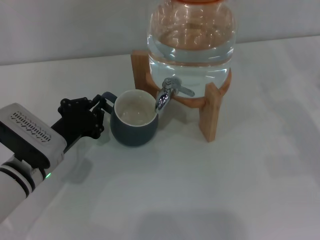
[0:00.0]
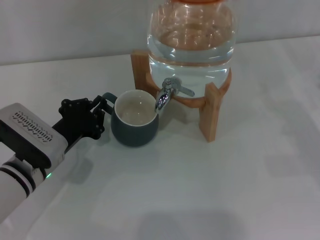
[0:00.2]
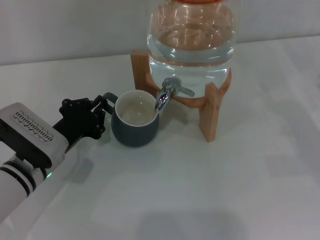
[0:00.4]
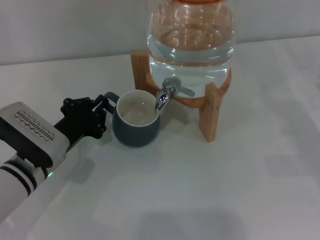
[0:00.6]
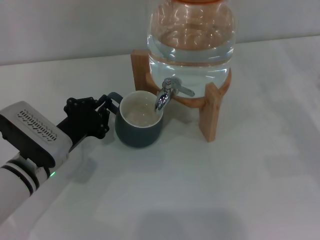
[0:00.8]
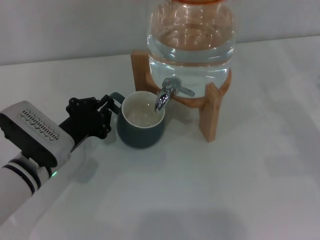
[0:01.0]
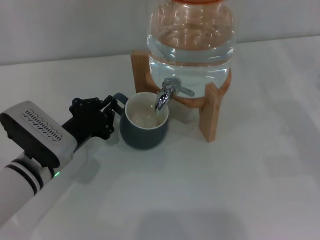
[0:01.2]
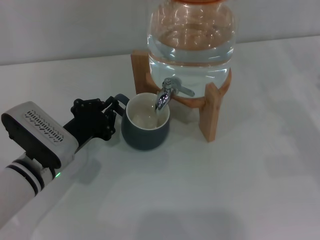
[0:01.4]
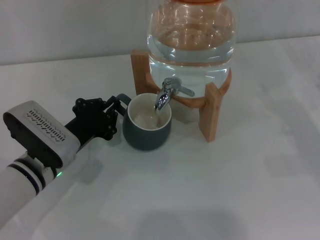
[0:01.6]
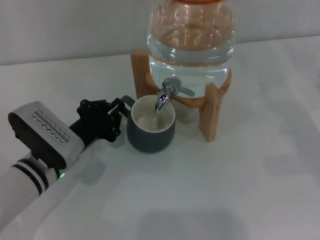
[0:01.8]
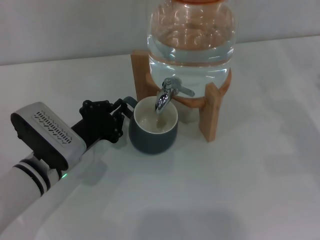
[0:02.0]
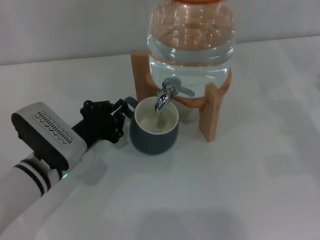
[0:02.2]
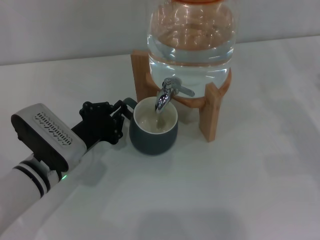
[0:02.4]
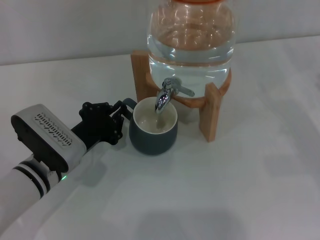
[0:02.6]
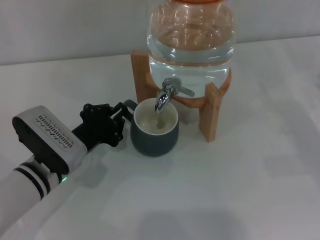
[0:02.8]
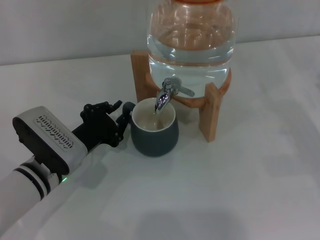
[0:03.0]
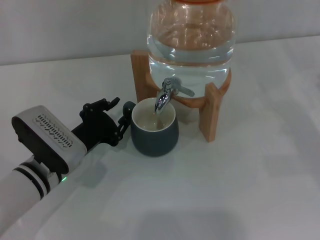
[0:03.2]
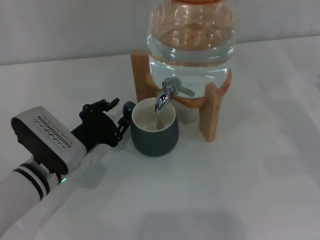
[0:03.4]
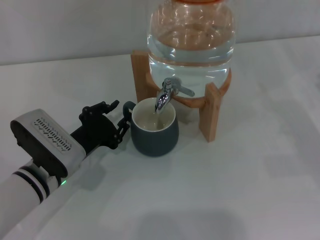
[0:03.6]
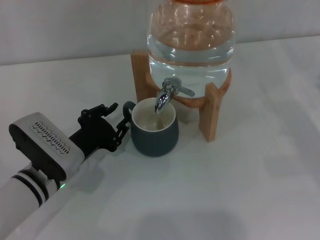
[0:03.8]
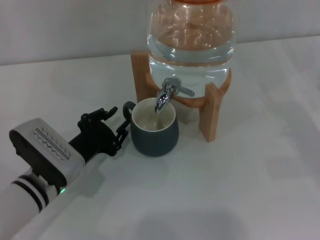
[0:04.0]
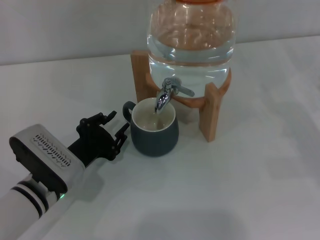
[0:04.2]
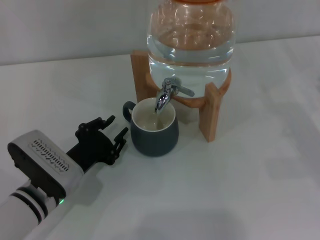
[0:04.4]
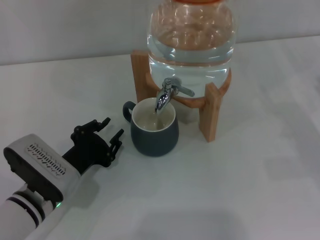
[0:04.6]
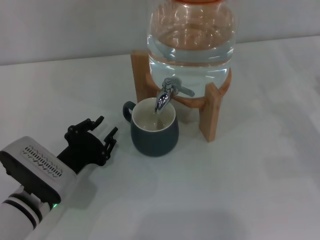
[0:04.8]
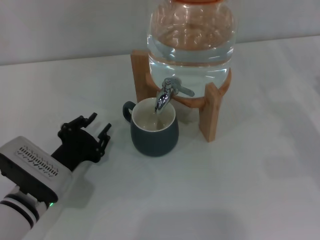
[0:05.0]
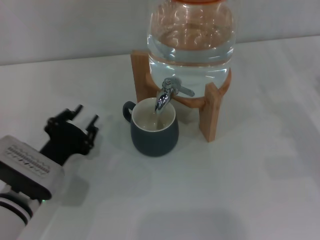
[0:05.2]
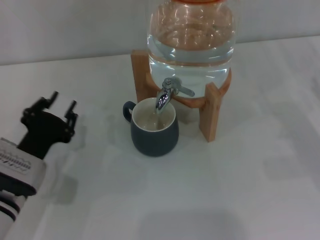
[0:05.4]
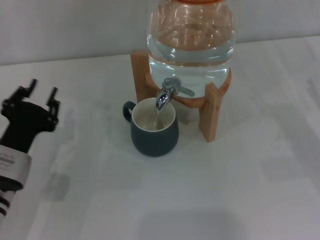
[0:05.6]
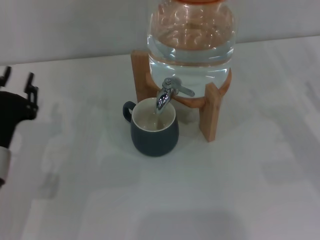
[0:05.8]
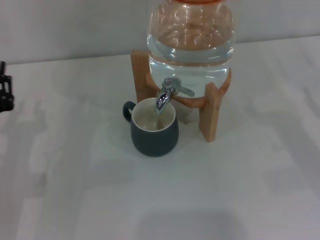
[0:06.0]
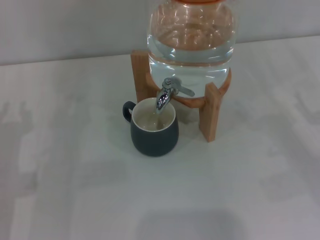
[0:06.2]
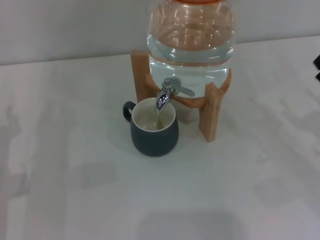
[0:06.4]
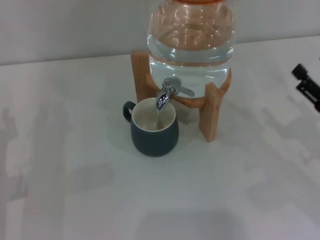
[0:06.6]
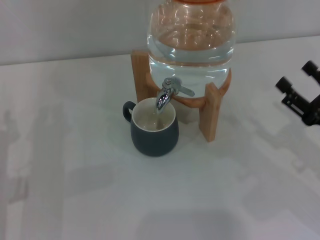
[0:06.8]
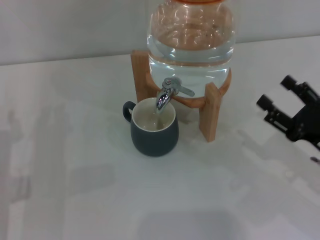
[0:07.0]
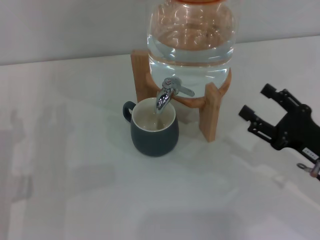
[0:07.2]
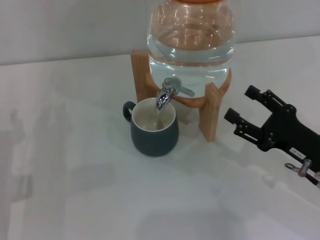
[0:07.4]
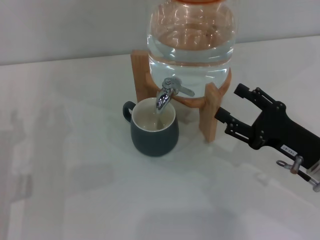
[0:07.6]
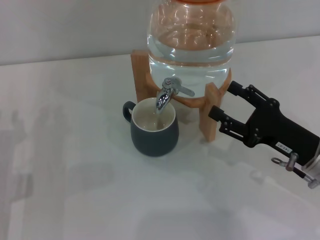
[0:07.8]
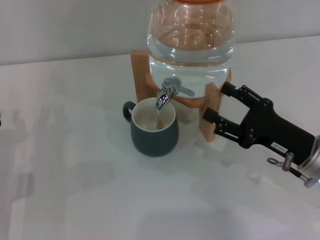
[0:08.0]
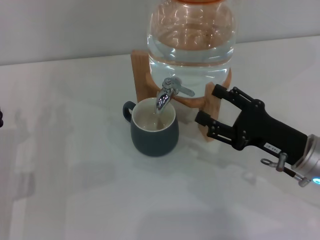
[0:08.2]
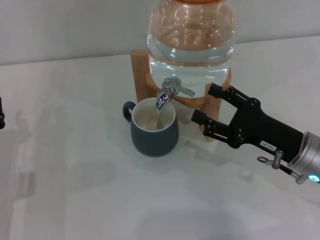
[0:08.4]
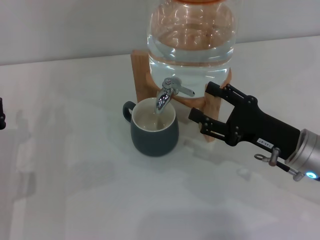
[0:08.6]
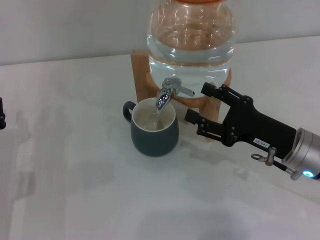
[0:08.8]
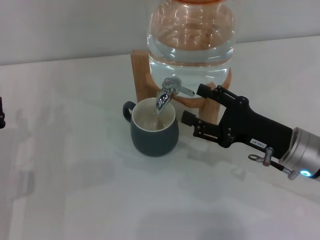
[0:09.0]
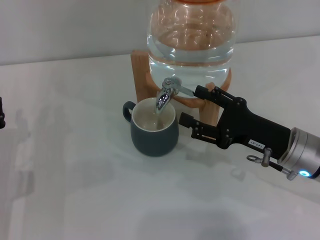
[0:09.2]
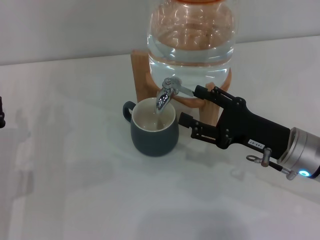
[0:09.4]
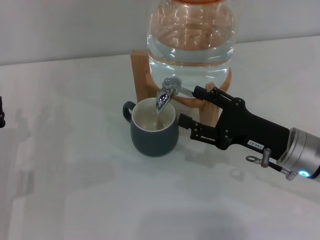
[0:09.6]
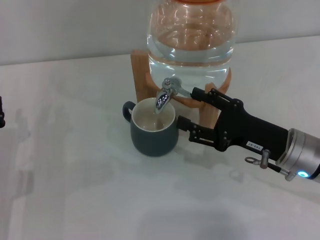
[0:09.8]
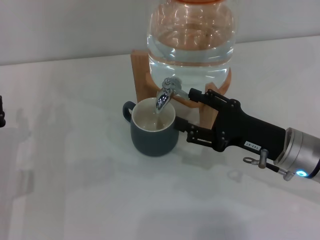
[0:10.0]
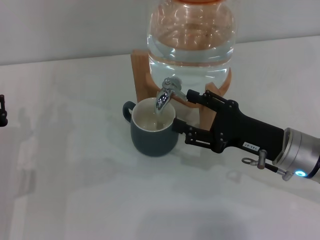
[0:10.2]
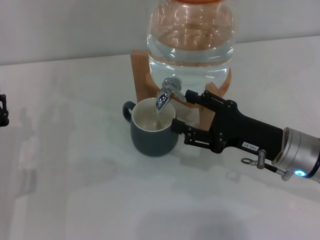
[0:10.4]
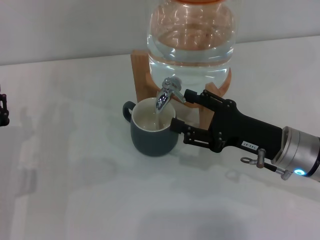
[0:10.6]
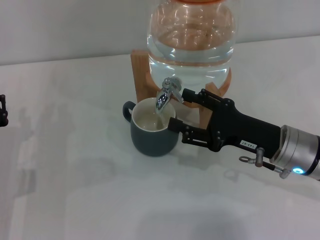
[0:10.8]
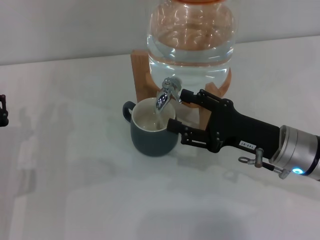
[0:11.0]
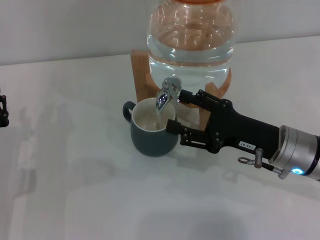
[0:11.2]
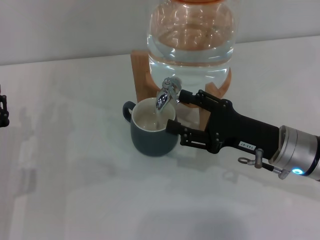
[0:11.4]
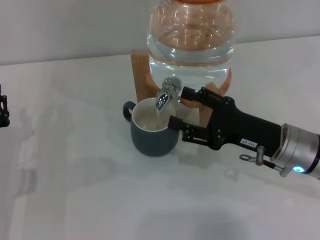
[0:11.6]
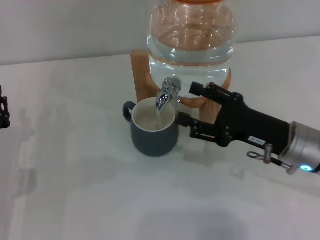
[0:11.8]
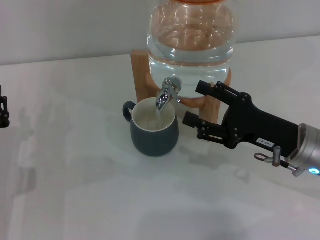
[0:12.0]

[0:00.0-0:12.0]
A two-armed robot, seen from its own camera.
Task of the whole recording: the left gripper pick up the black cup and place it horizontally under the faucet, the right gripper turn on the faucet to fill the cup, and then turn off the faucet.
Step, 0:00.0 to 0:05.0: Move the cup beneath the water dispenser nozzle with the left gripper.
0:00.0 to 0:01.6: The grippers move only a little.
0:01.6 to 0:03.0: The two grippers keep their place.
0:03.0 to 0:04.4: The grippers stay close to where they were, moving slightly.
0:04.4 to 0:06.0: The left gripper is displaced to the left by approximately 5 cm.
0:06.0 to 0:07.6: The right gripper travels to the left by about 10 cm.
0:07.6 to 0:12.0: The grippers make only small movements.

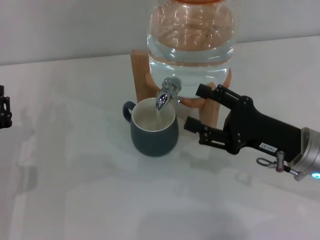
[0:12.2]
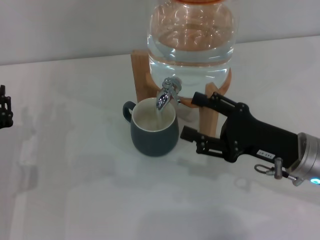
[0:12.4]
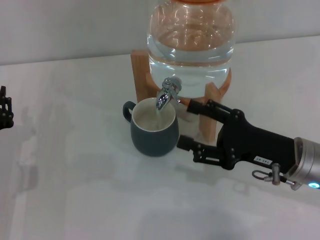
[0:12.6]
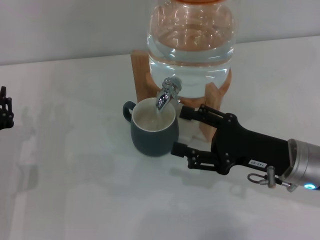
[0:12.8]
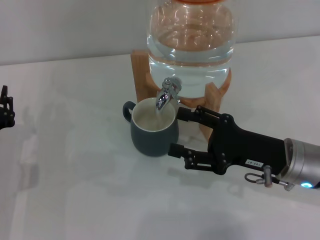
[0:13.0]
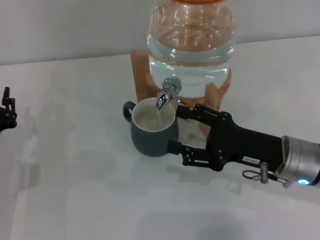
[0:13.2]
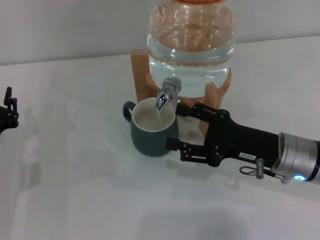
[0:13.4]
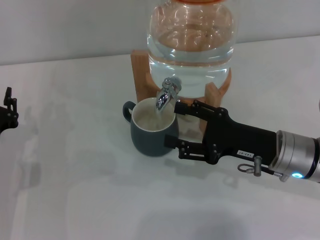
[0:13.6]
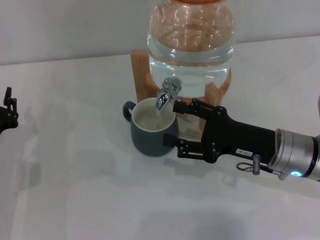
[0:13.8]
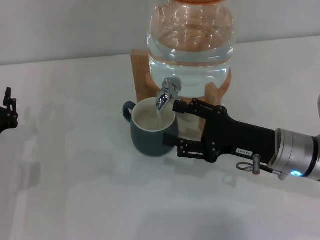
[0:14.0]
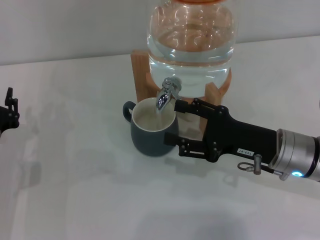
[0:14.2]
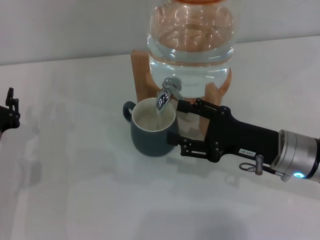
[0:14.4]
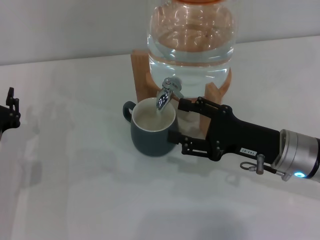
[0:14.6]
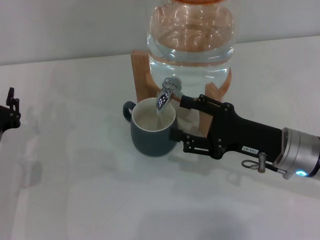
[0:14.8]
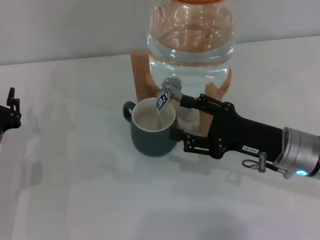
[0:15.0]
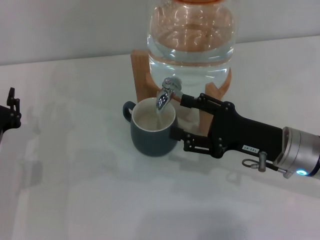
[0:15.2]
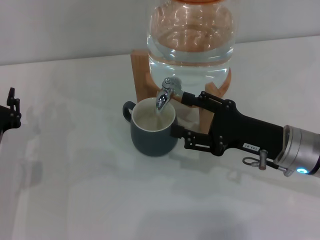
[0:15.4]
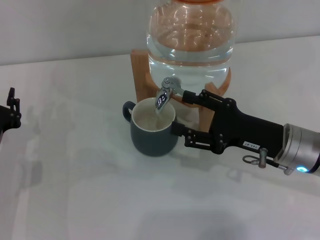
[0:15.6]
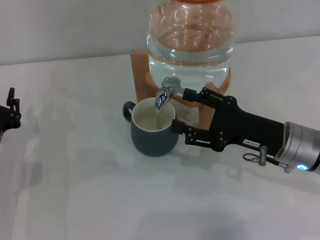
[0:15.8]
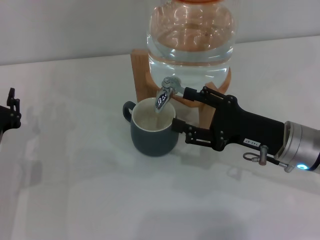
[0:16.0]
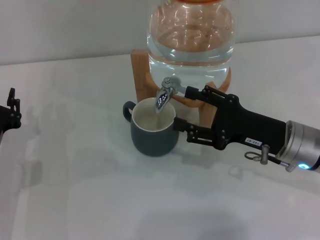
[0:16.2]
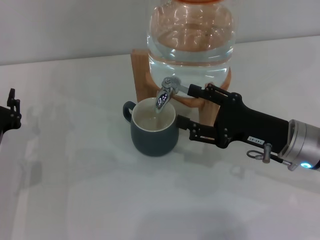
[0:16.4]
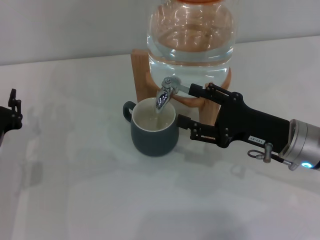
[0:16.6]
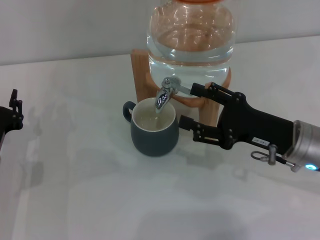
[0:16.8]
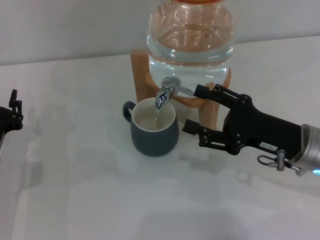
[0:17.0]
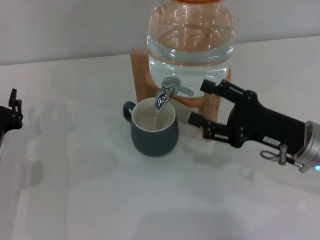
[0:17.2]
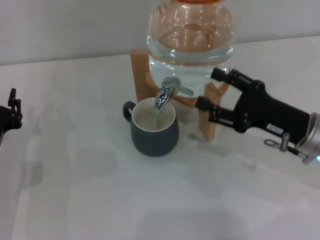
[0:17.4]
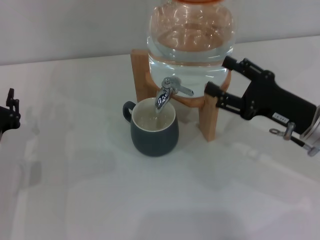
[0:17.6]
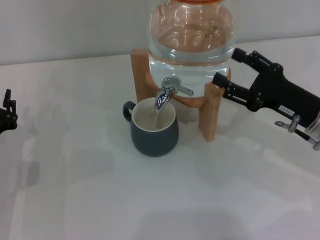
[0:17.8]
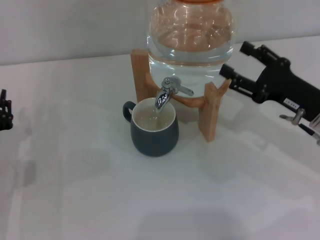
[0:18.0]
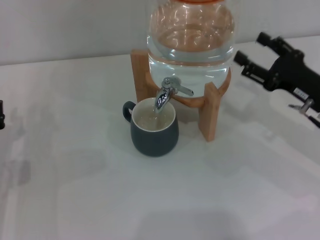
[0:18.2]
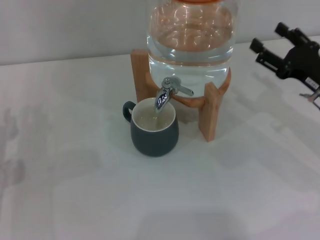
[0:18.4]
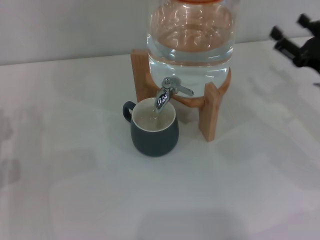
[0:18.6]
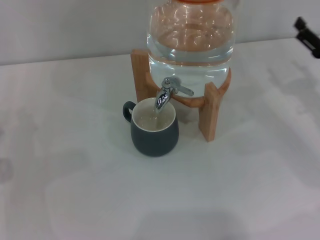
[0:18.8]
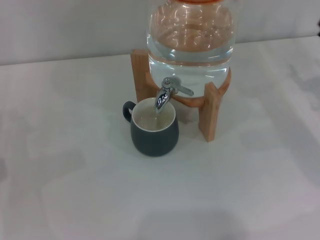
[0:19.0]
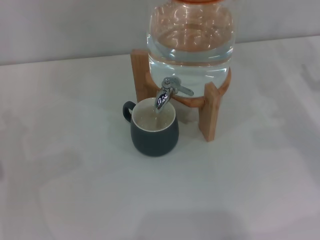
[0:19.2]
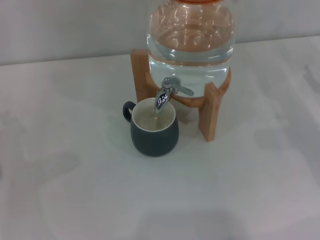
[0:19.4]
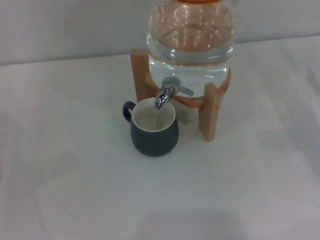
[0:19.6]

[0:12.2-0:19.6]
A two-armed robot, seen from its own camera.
Task of the whole recording: the left gripper pick up the black cup and place it horizontally under the faucet, the right gripper turn on the faucet to fill the cup, and then turn off the faucet.
Step, 0:13.6 to 0:17.4: Close the dispenser valve with the right gripper.
0:12.2 to 0:13.6: The grippers stay close to where they were, moving slightly.
0:13.6 to 0:15.2: Both grippers stay about where they are.
0:15.2 to 0:16.6: Both grippers stay about where they are.
0:16.6 to 0:18.2: The right gripper travels to the right by some 5 cm.
0:18.2 to 0:19.6: The right gripper moves to the right, approximately 10 cm.

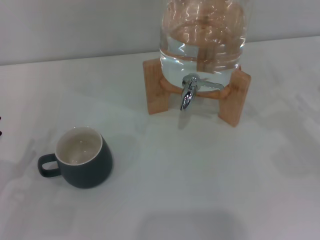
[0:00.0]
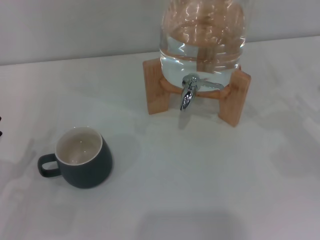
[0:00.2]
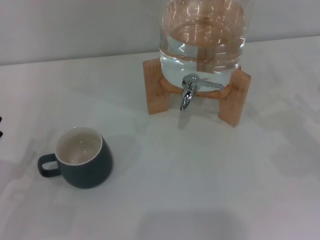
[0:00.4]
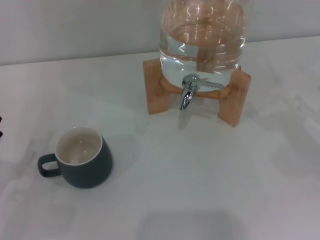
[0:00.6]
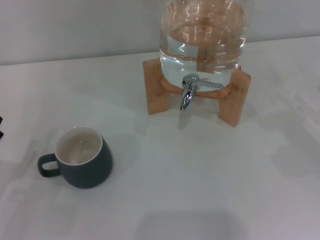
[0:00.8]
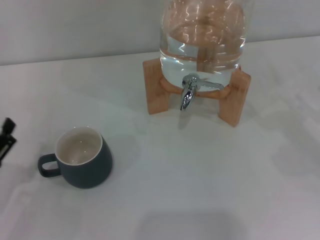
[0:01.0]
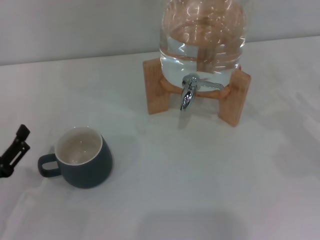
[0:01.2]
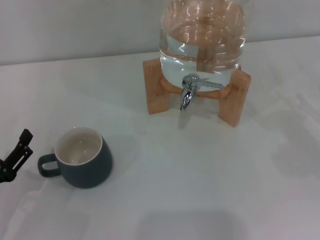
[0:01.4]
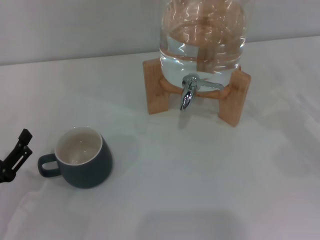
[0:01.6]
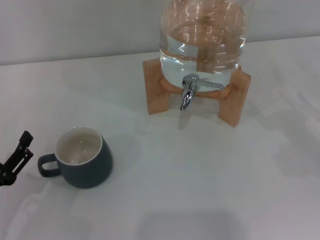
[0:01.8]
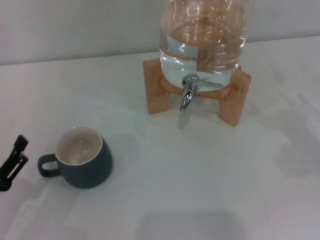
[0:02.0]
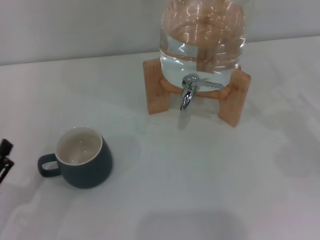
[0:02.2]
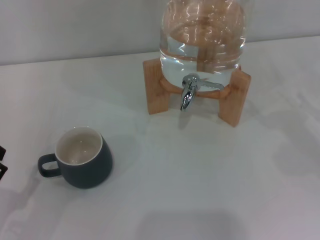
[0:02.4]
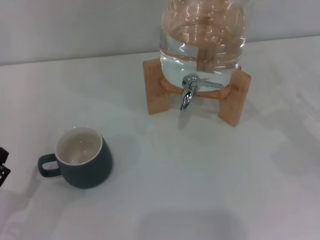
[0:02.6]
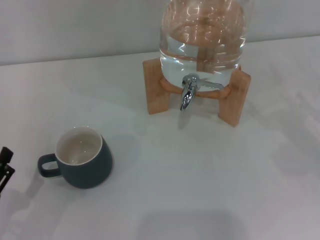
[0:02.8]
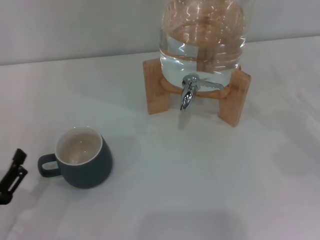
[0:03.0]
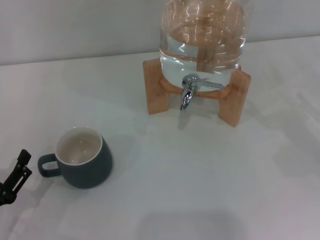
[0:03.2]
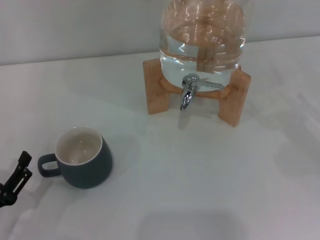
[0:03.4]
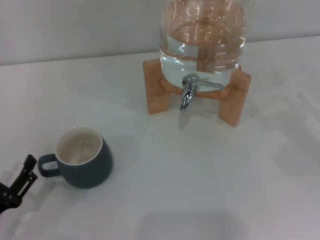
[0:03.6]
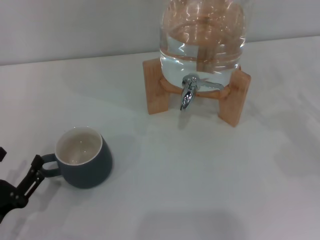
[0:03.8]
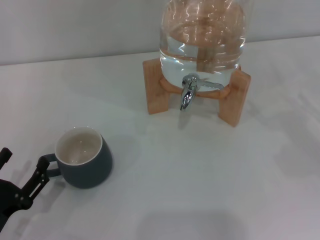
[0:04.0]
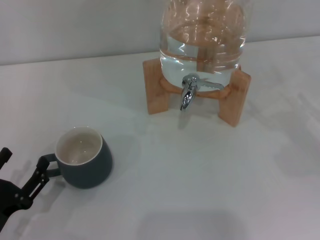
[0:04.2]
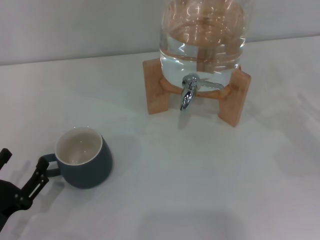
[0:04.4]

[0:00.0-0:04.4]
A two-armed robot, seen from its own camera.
Task of the whole recording: the left gripper pick up the black cup and place it horizontally under the faucet, the right gripper turn on the faucet to fill the cup, and then turn off the faucet.
0:00.0 to 0:03.0: There are only small adjustments of the grippers.
0:03.0 to 0:04.4: There are only small adjustments of the grippers.
